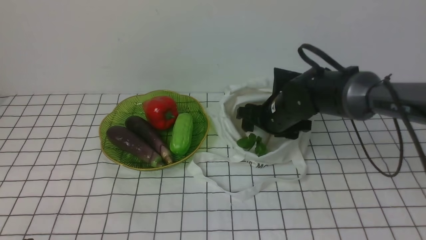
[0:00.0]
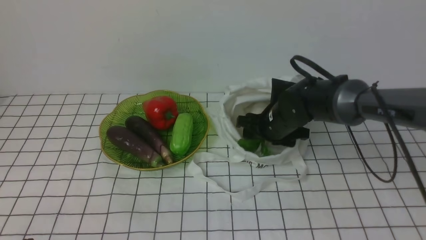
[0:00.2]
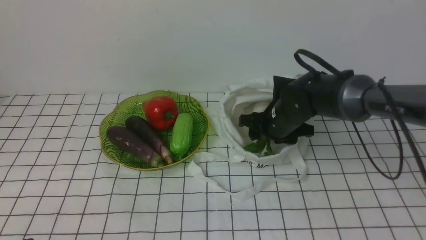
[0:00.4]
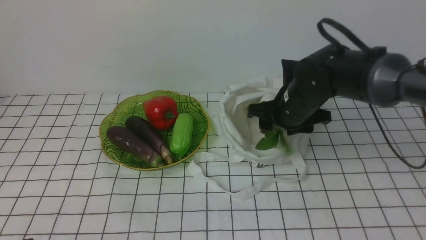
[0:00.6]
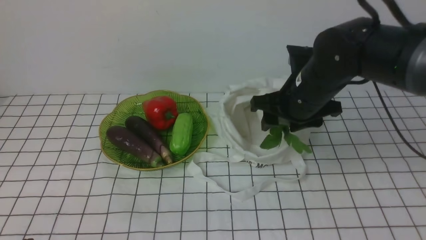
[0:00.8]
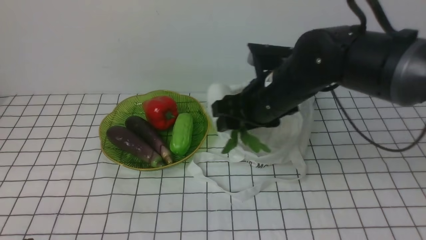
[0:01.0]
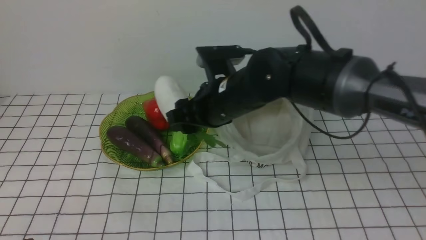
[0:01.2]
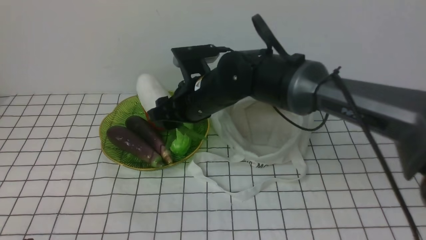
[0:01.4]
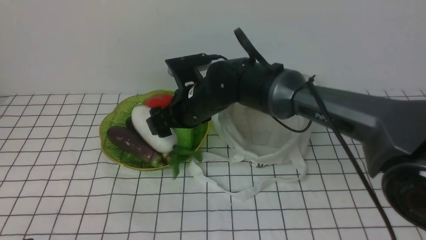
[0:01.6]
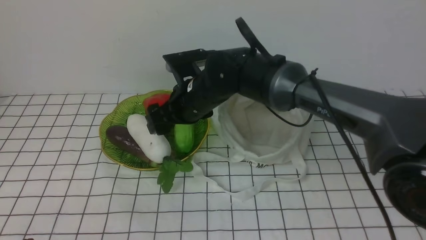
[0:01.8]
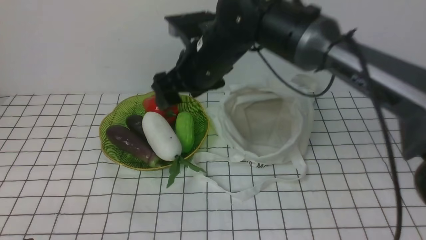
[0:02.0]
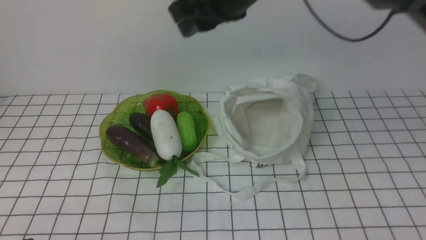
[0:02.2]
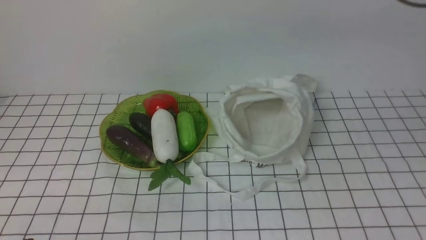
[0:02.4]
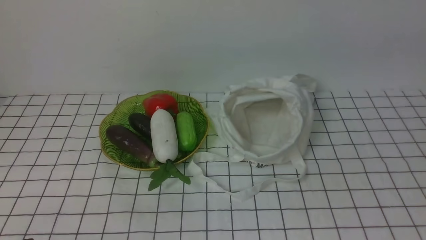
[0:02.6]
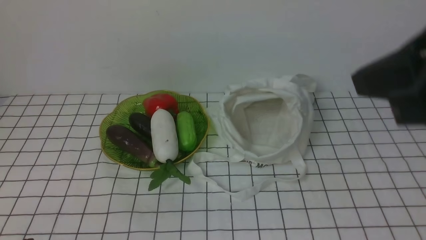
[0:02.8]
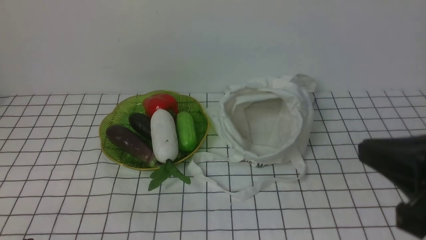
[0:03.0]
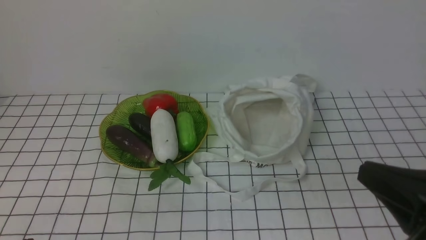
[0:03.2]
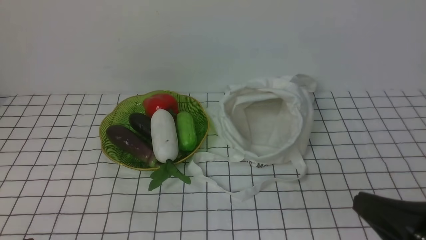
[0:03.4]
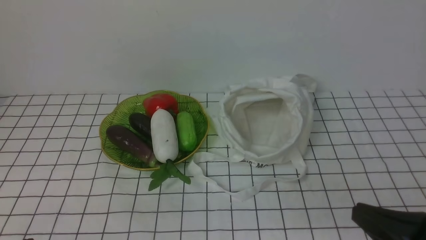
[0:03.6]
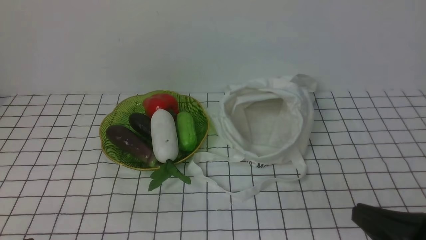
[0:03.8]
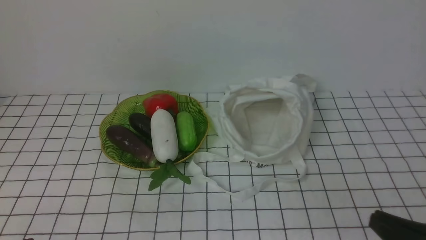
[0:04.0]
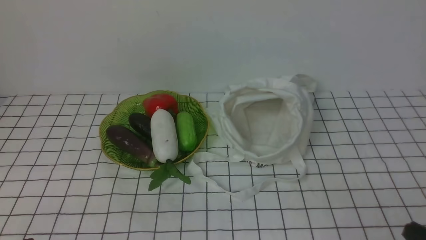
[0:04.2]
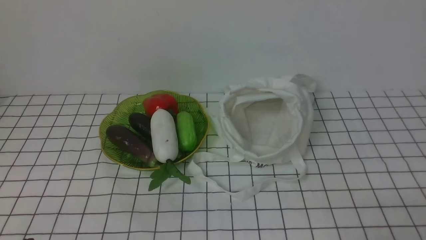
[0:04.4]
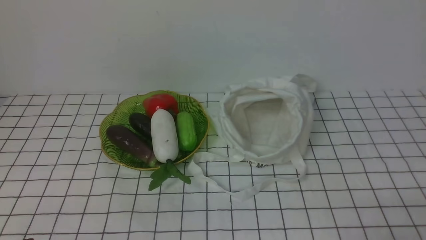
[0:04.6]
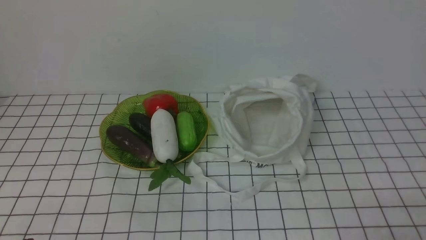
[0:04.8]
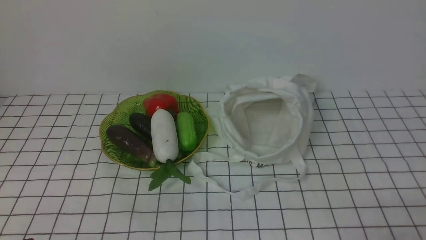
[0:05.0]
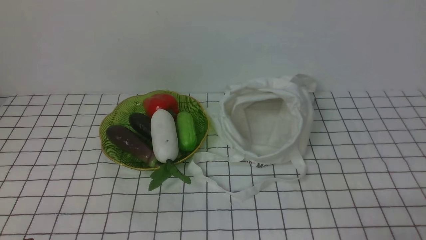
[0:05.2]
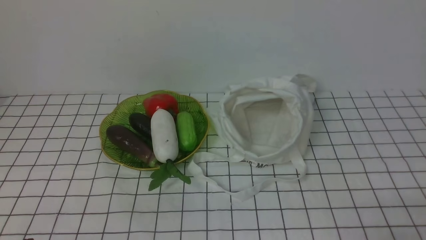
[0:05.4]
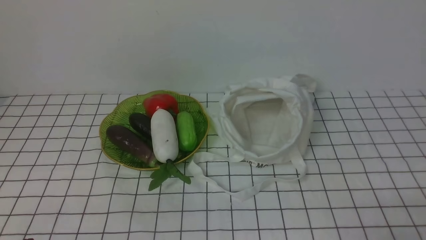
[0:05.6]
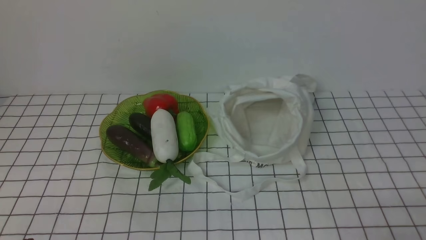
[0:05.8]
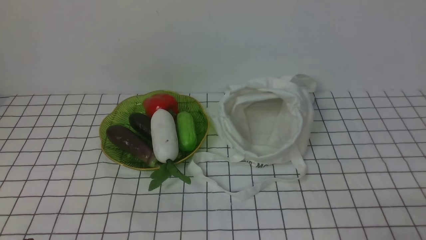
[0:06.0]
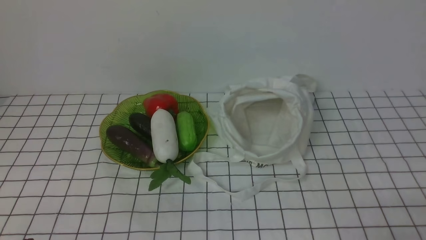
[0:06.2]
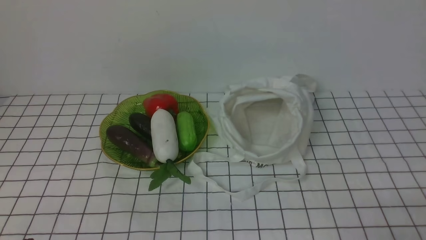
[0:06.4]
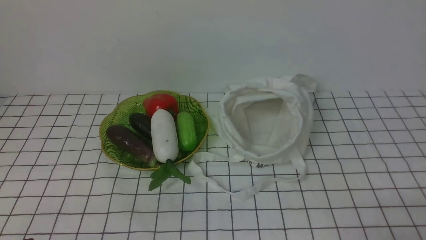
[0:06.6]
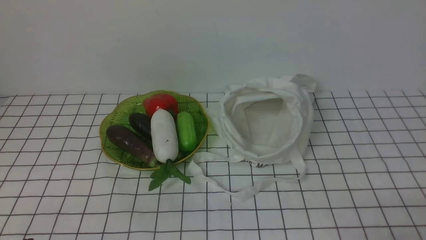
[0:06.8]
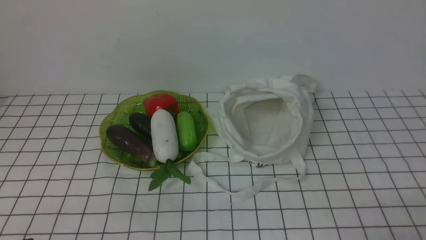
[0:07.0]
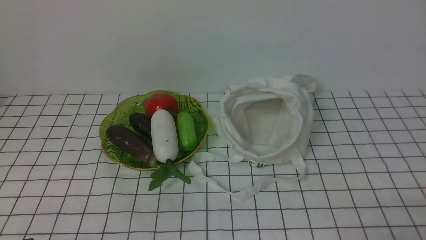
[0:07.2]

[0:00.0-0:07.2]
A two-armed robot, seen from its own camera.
Task of the whole recording: take vegetables from bag on white checkered tablecloth place on plate.
Step, 0:00.4 to 0:01.8: Place the radish on the plate with right gripper.
0:00.0 to 0:01.4: The right gripper heads to the left and upward, covering about 10 cm.
0:01.4 to 0:02.8: The right gripper heads upward, to the right and backward, covering about 30 cm, and closes.
0:02.8 to 0:04.4: The right gripper heads downward, backward and to the right, covering about 35 cm.
0:05.8 to 0:07.2: Both grippers stay about where they are.
